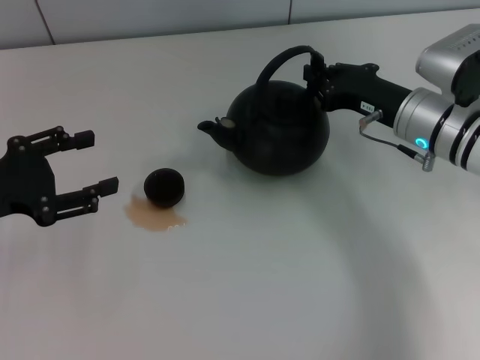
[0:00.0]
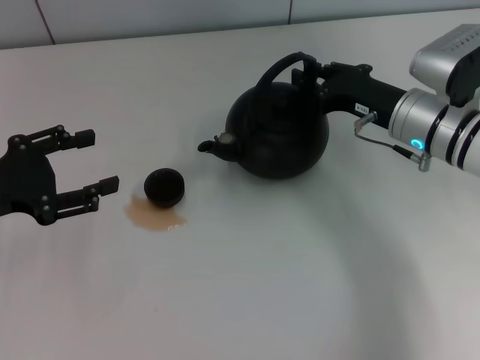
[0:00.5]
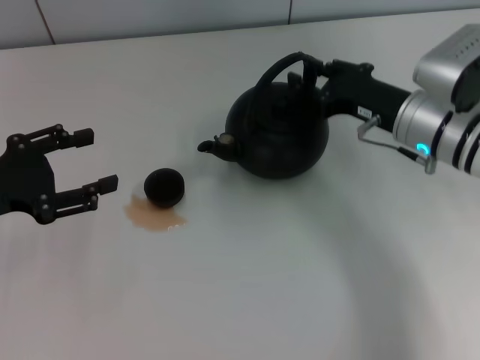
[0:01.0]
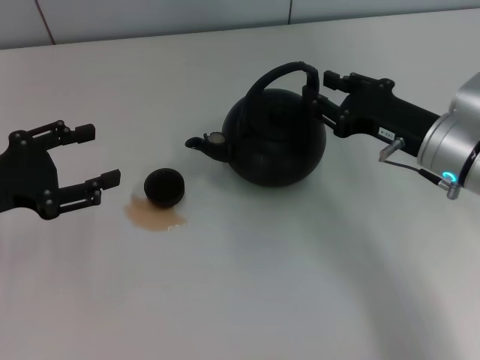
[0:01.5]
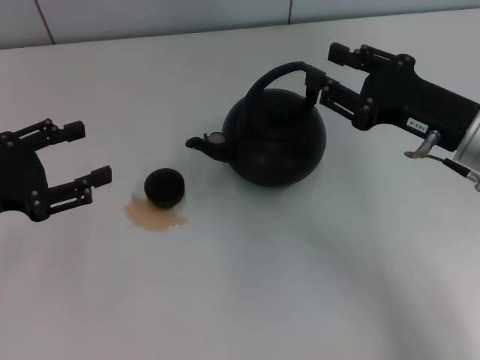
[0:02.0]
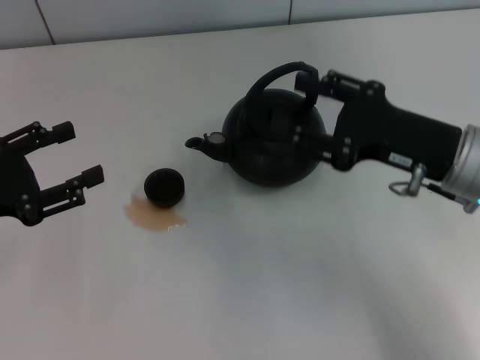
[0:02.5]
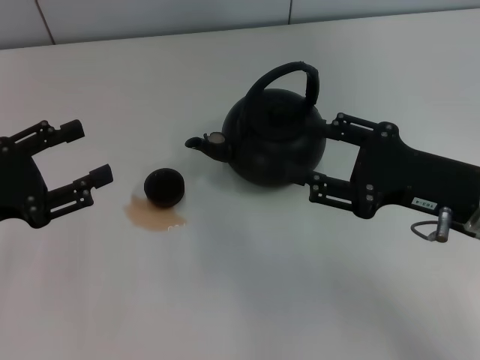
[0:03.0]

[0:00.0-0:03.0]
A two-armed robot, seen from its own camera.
Task of the whole recording: Grasp the handle of the teapot with one hand and pour tea into the teacup.
0:00.0 to 0:01.5: The right gripper shifts by roughly 5 cm, and opens up.
0:01.5 to 0:03.0: The right gripper heads backward, covering approximately 5 cm.
